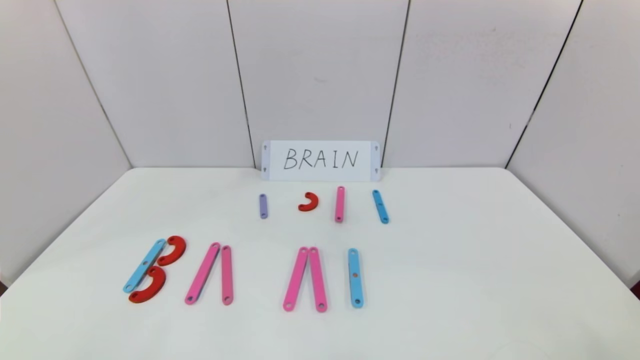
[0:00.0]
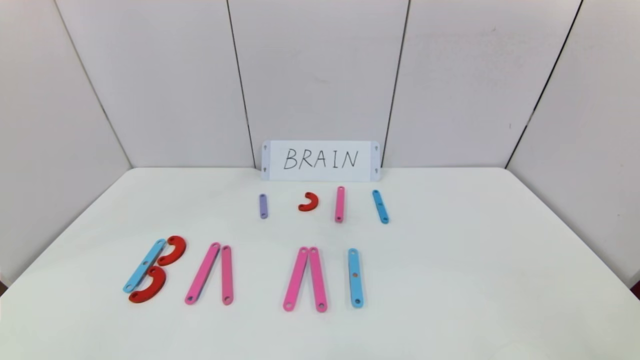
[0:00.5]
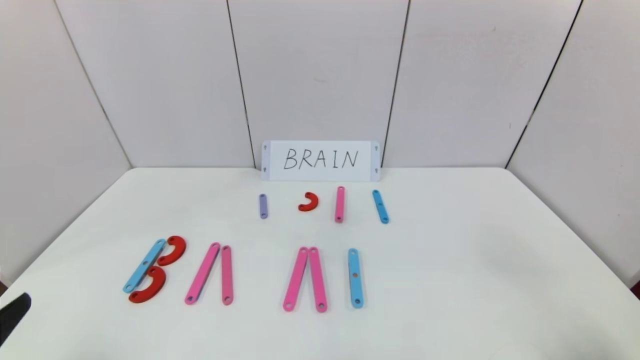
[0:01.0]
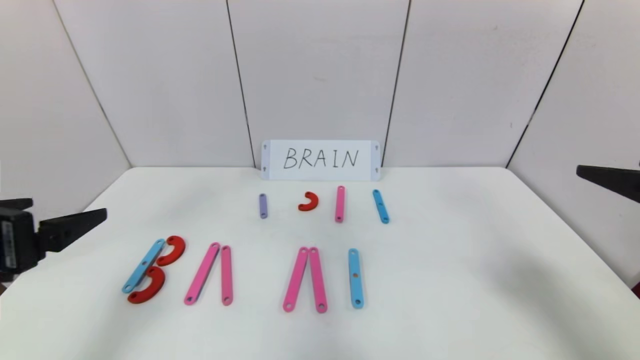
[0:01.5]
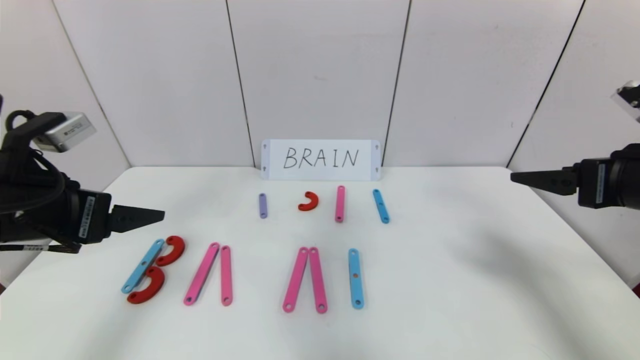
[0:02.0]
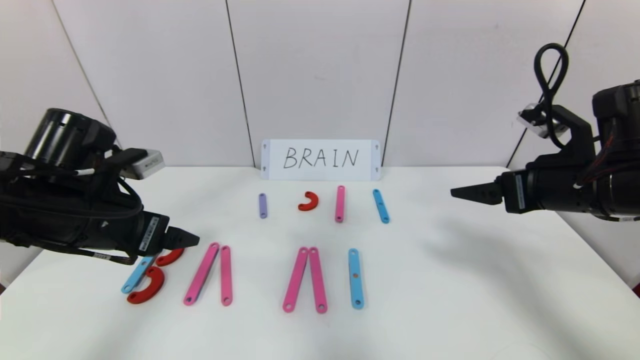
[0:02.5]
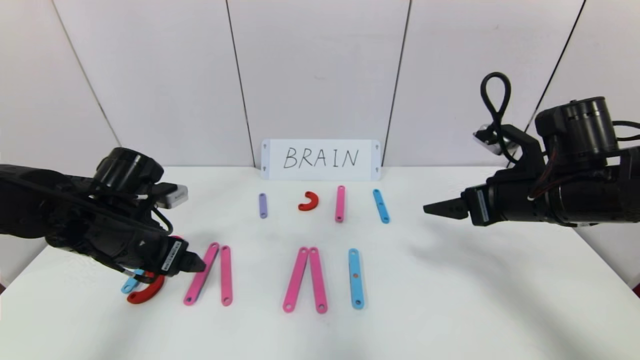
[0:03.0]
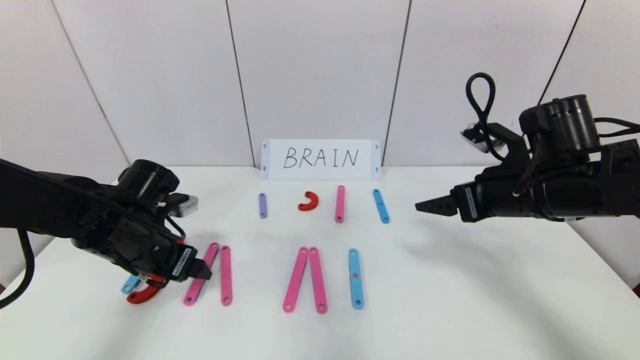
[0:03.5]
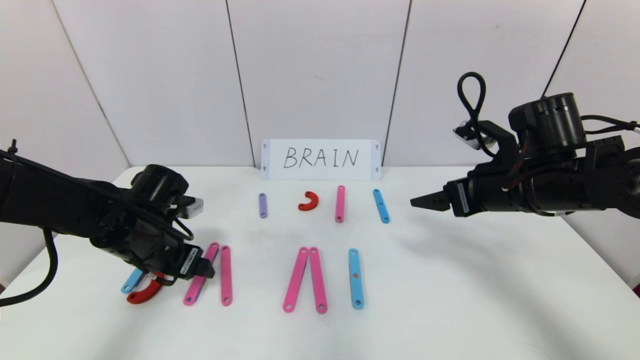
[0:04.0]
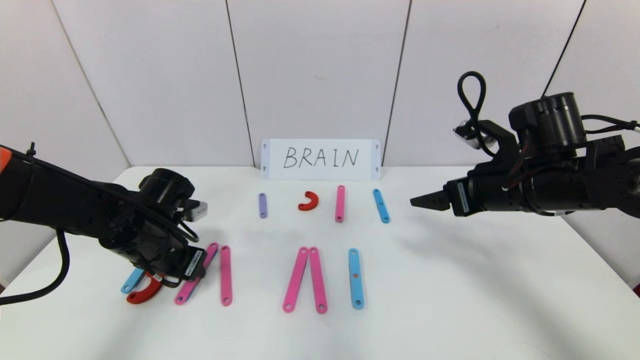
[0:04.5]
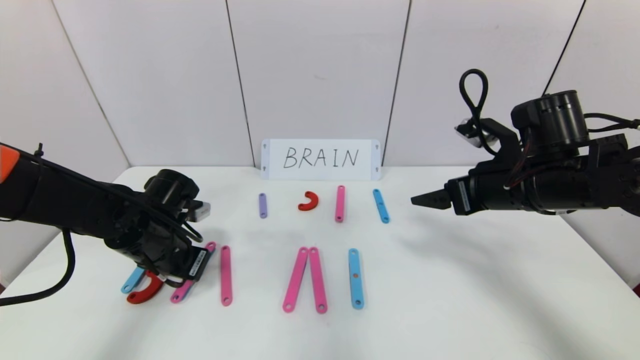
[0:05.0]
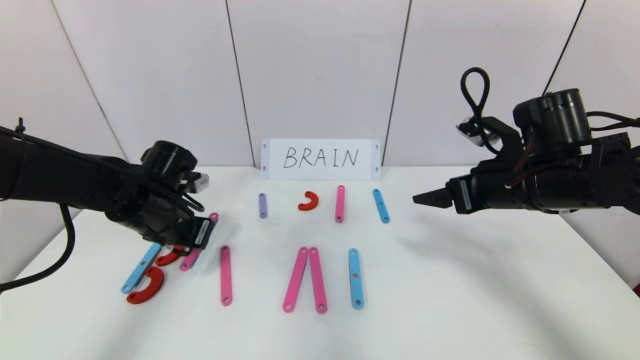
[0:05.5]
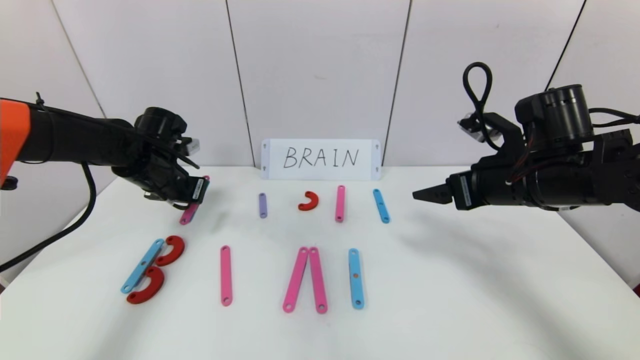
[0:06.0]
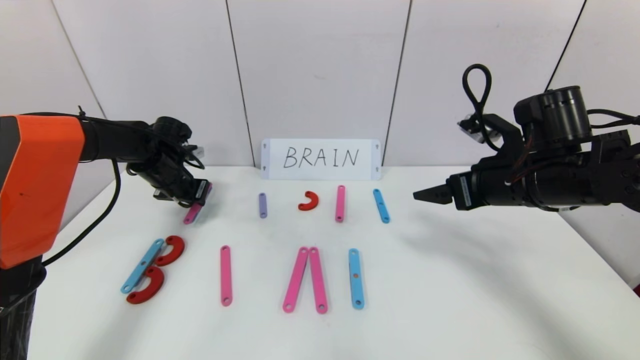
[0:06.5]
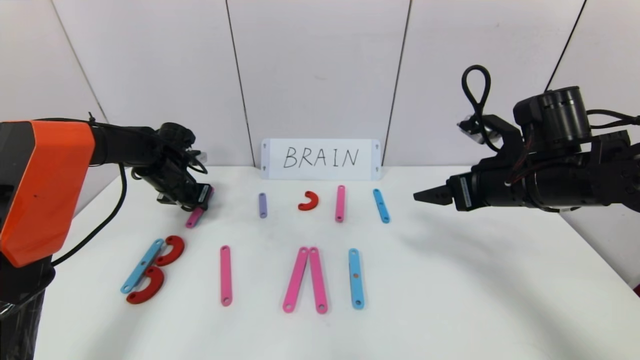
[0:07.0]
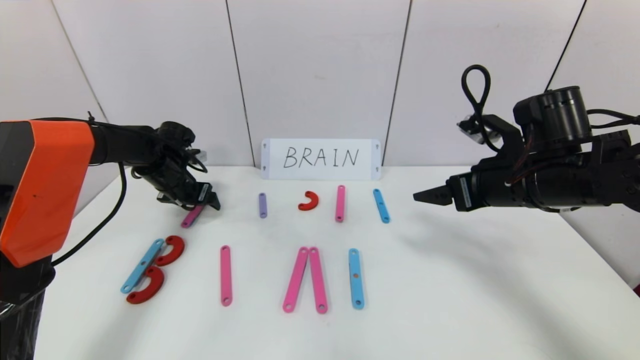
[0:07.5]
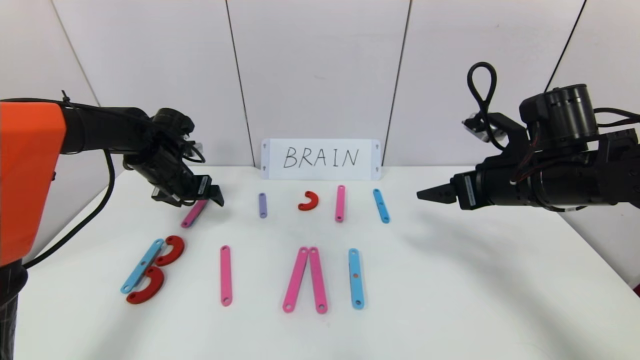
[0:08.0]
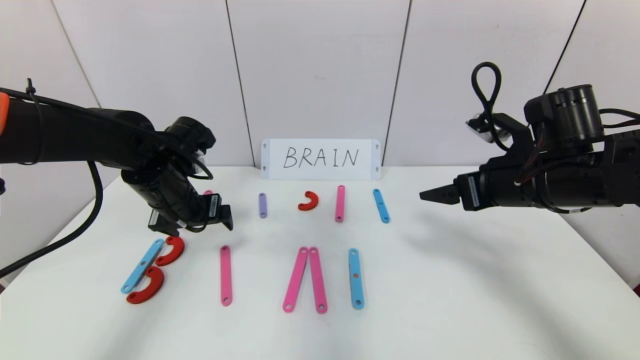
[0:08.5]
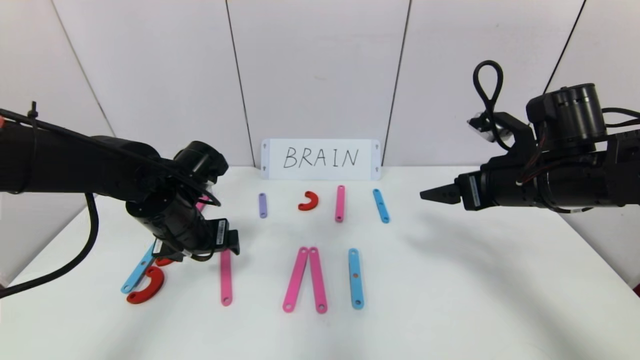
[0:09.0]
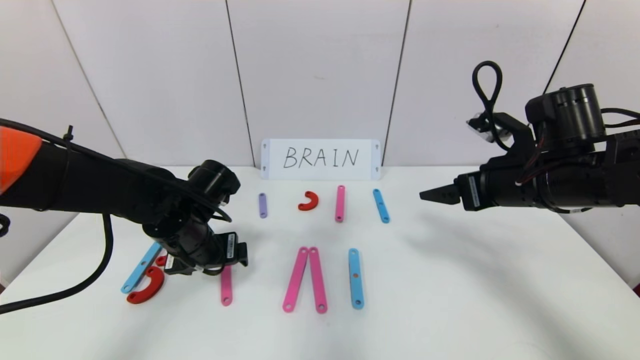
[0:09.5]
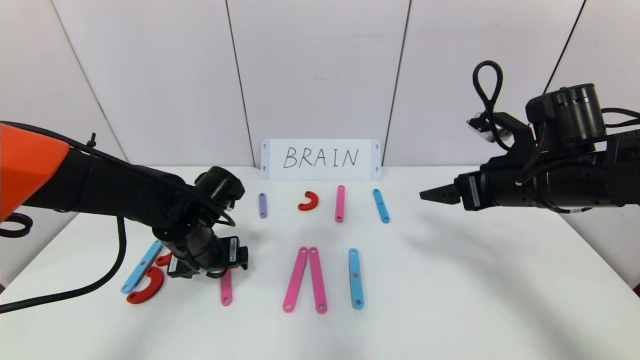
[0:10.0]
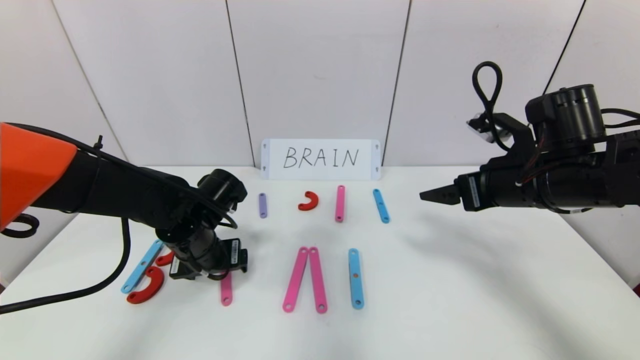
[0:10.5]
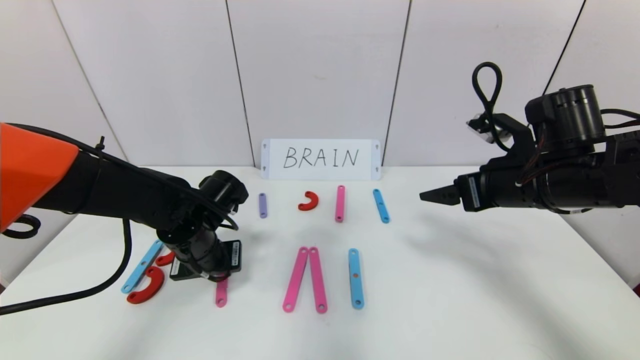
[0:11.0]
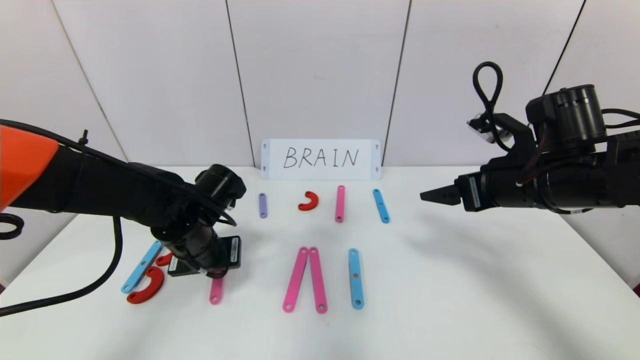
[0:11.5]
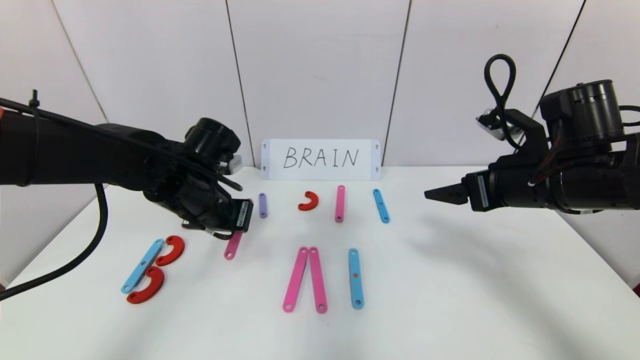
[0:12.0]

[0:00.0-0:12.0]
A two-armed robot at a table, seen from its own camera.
Task of the whole recording: rearrange the word baai as brain.
0:00.0 to 0:02.0: Both grippers move forward and upward, roughly 30 cm.
0:02.0 to 0:04.0: The right gripper heads forward, to the left and downward, covering some 15 cm. The left gripper moves downward and forward, about 15 cm.
0:04.0 to 0:06.0: The left gripper shifts some 10 cm forward and upward, and closes up.
0:06.0 to 0:08.0: The left gripper opens up.
0:08.0 to 0:10.0: The left gripper goes some 15 cm backward, to the right and downward.
0:10.0 to 0:12.0: The left gripper moves upward, approximately 5 cm, and closes its fingers.

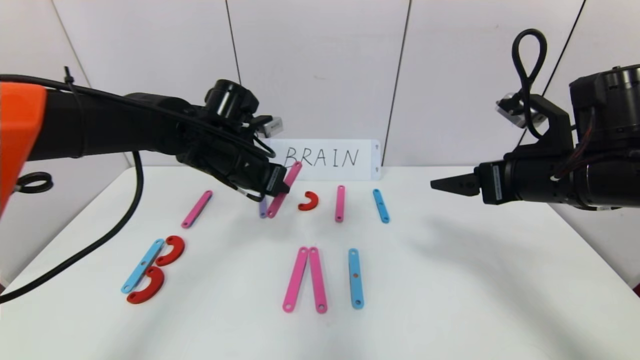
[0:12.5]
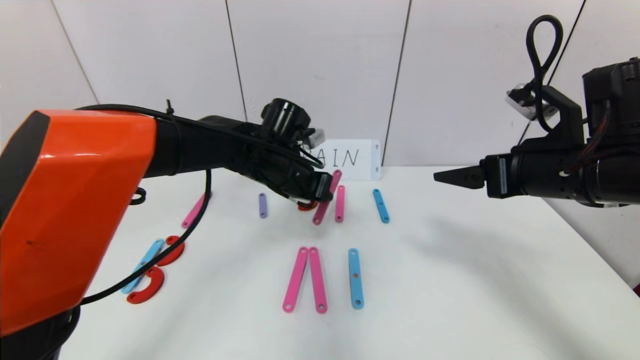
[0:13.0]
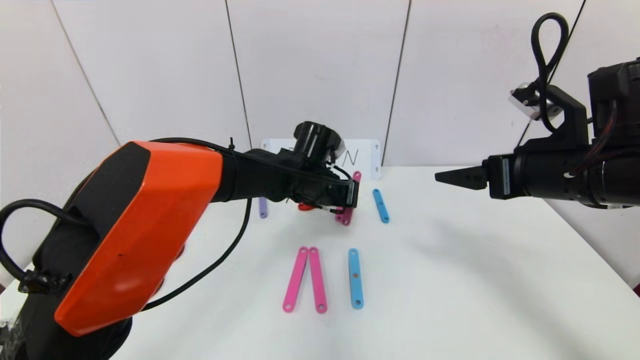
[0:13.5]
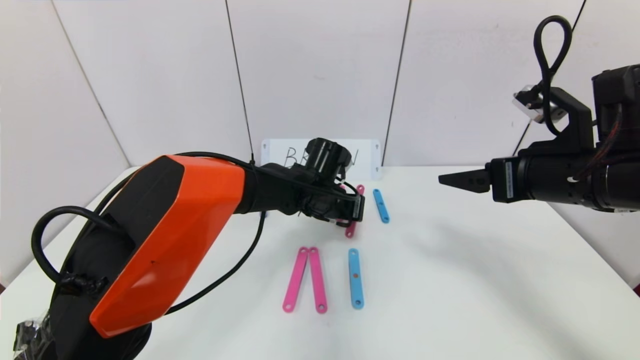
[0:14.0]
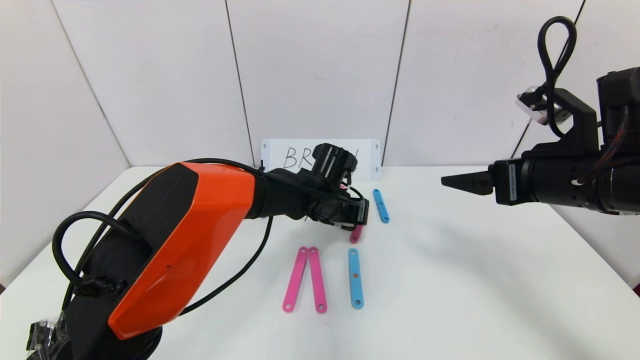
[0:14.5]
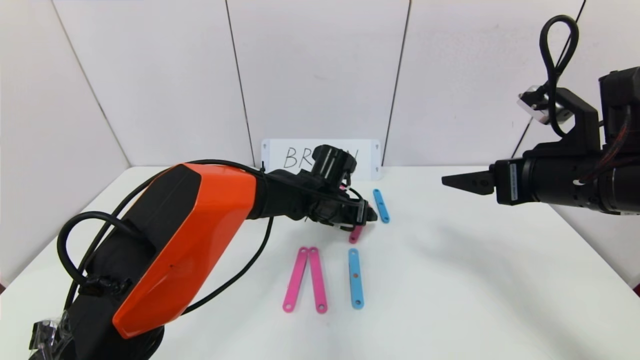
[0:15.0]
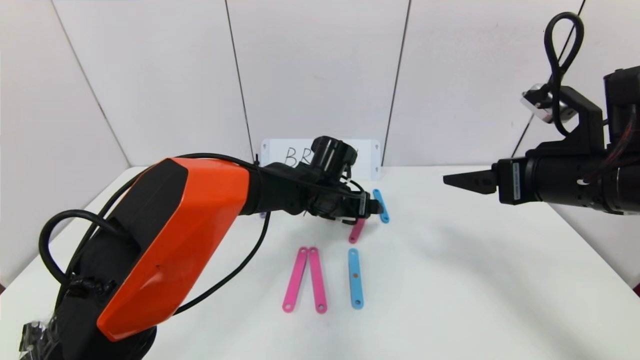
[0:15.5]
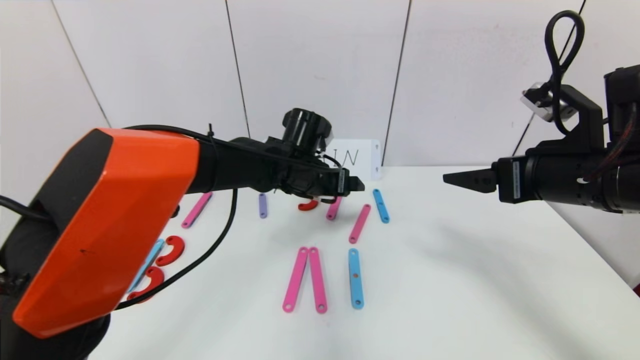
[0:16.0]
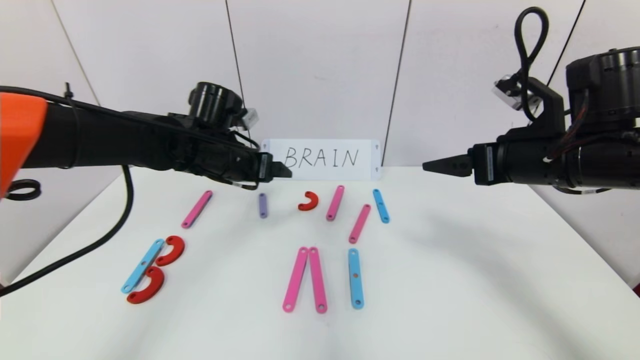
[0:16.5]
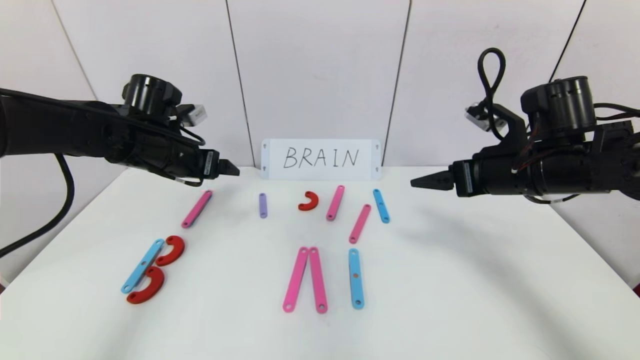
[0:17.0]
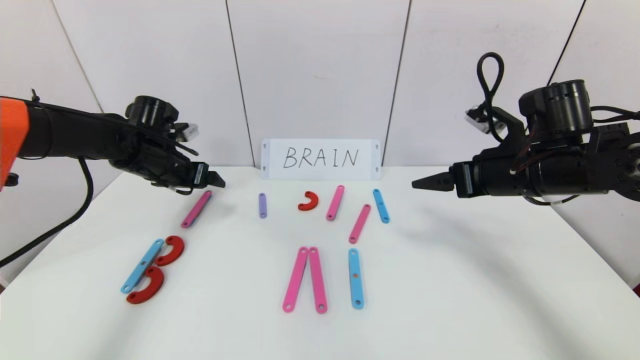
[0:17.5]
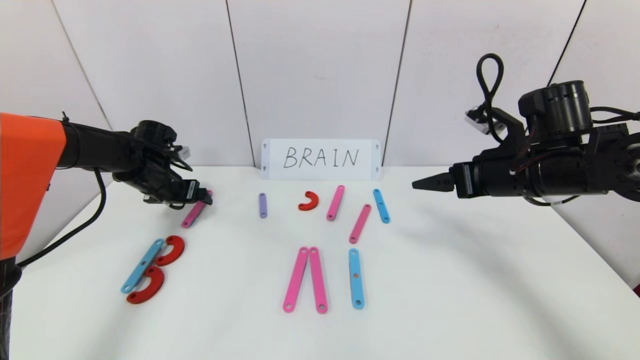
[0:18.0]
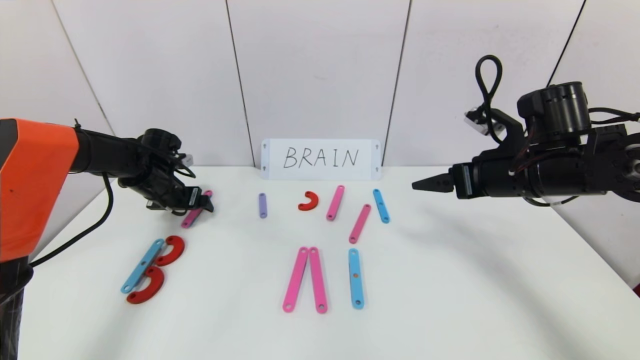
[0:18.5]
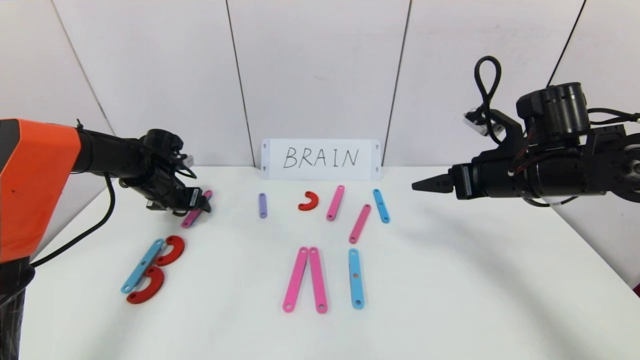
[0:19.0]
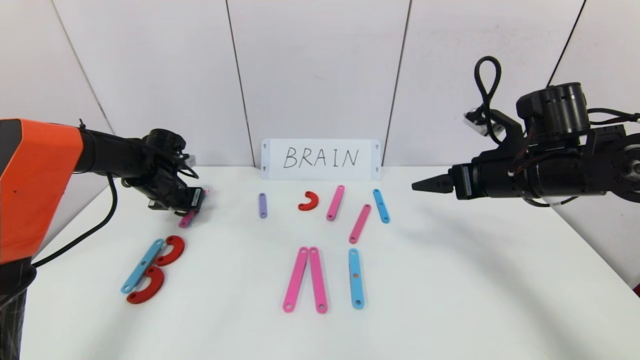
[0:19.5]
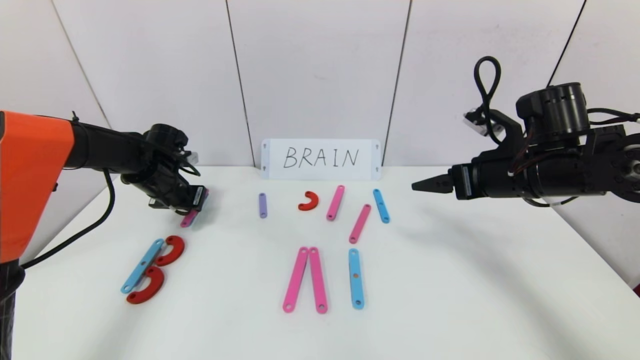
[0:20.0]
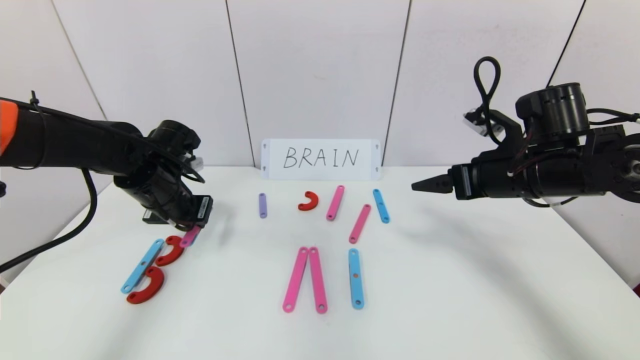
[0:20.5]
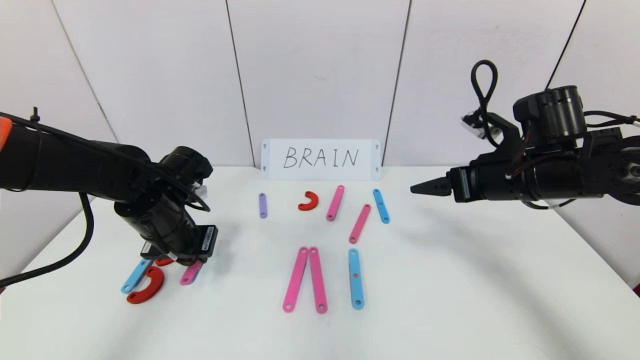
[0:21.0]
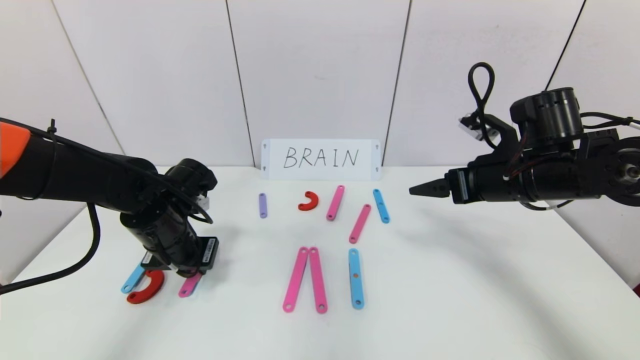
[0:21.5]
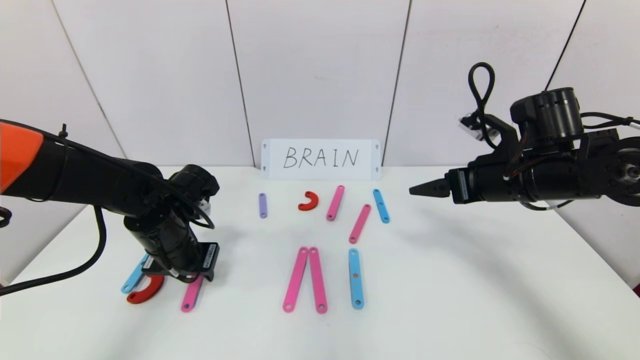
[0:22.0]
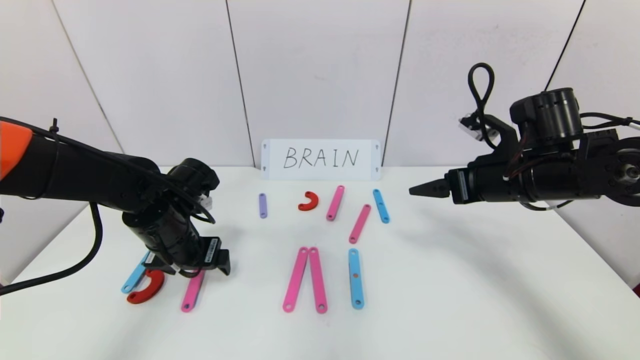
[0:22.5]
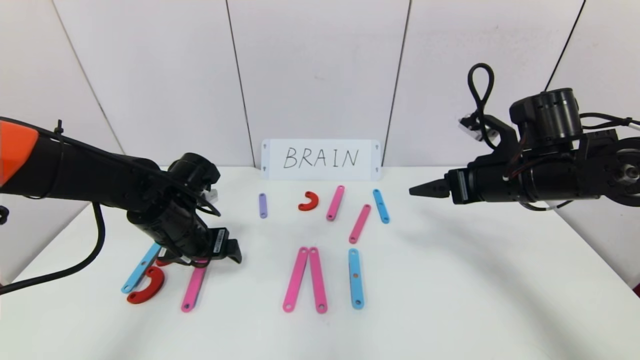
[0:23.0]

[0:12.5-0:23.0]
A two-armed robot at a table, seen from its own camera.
Task of the whole recording: rearrange the word baai as brain.
Step, 0:12.5 to 0:15.0: Disassemble the second character A.
0:12.5 to 0:14.5: The left gripper heads to the right and downward, covering some 15 cm.
0:14.5 to 0:16.5: The left gripper moves to the left and upward, about 20 cm, and opens its fingers.
0:16.5 to 0:19.0: The left gripper heads to the left, downward and forward, covering some 20 cm. The right gripper shifts by approximately 5 cm.
0:19.0 to 0:21.0: The left gripper travels backward and to the right by approximately 15 cm, and closes.
0:21.0 to 0:23.0: The left gripper opens up.
